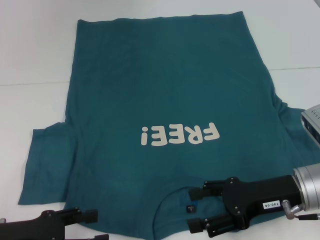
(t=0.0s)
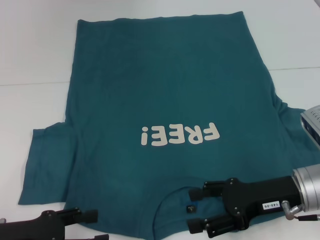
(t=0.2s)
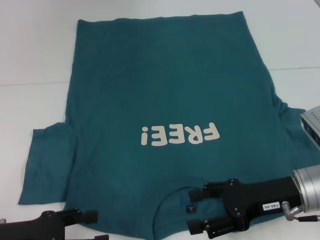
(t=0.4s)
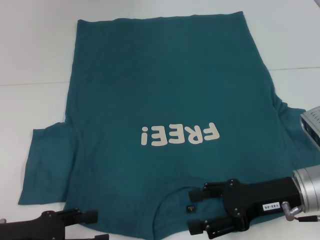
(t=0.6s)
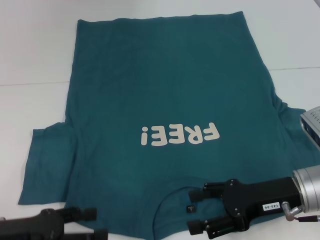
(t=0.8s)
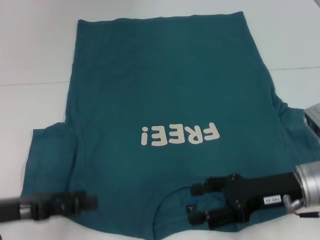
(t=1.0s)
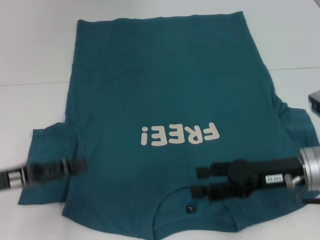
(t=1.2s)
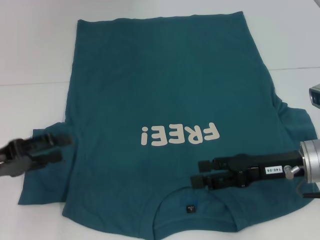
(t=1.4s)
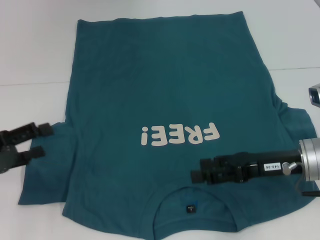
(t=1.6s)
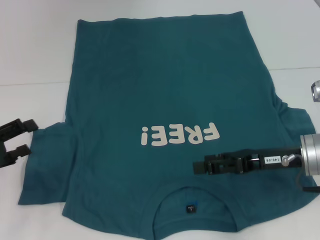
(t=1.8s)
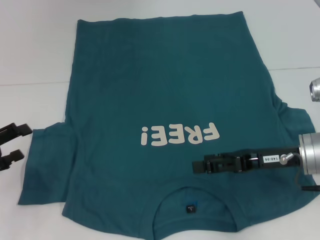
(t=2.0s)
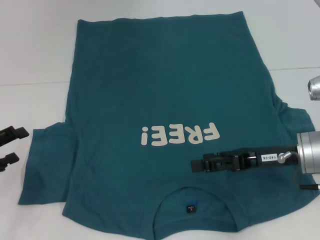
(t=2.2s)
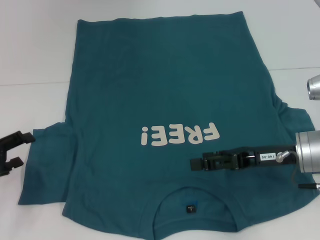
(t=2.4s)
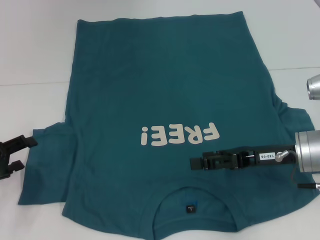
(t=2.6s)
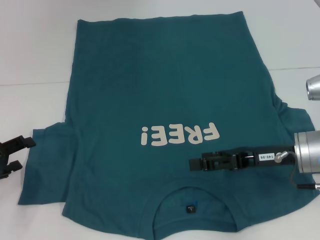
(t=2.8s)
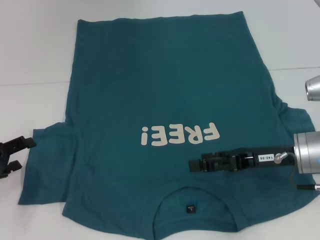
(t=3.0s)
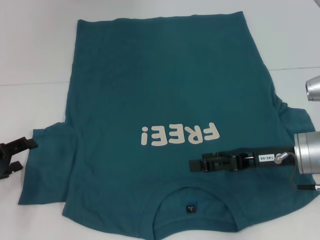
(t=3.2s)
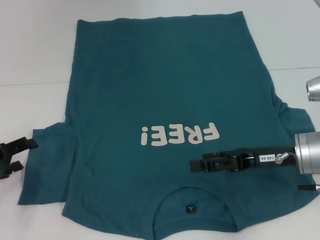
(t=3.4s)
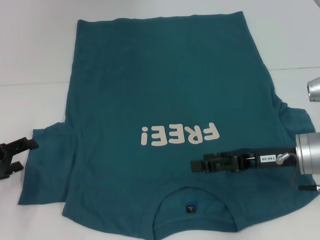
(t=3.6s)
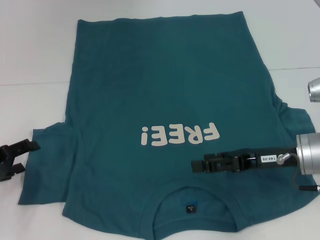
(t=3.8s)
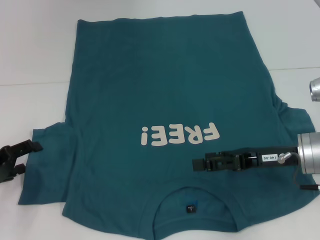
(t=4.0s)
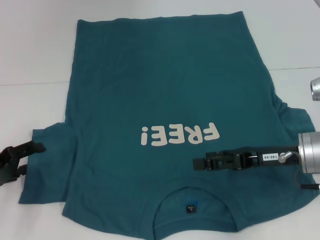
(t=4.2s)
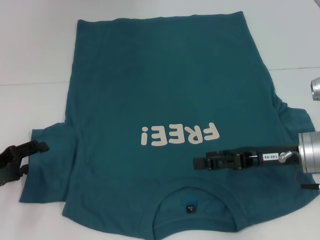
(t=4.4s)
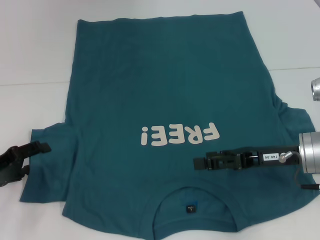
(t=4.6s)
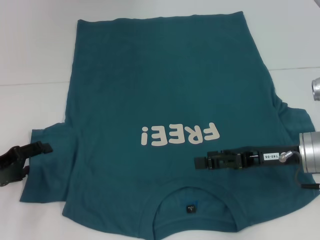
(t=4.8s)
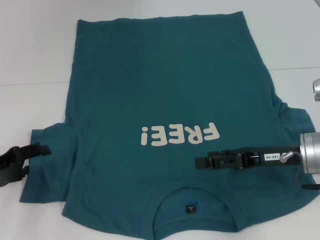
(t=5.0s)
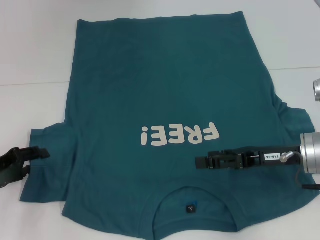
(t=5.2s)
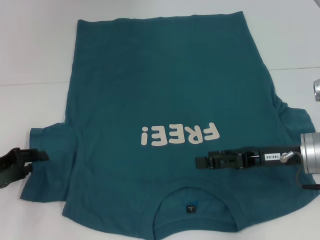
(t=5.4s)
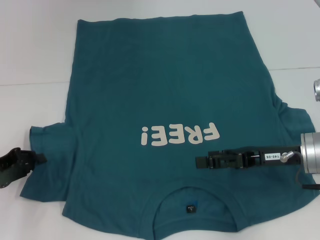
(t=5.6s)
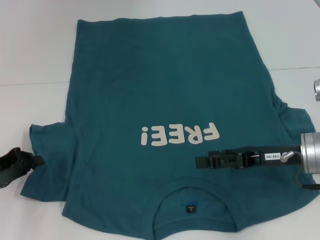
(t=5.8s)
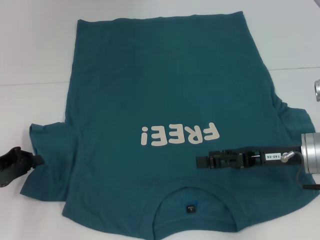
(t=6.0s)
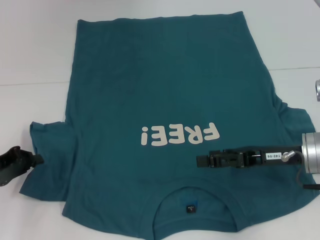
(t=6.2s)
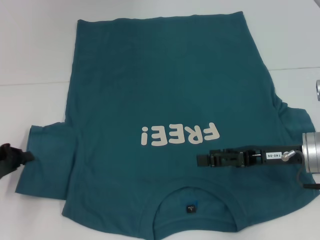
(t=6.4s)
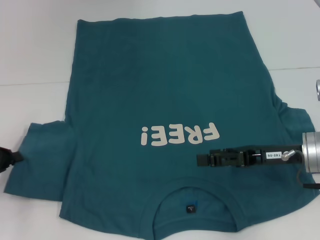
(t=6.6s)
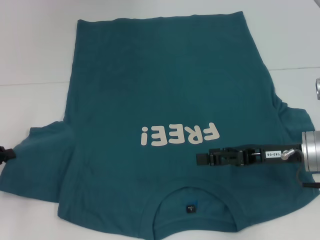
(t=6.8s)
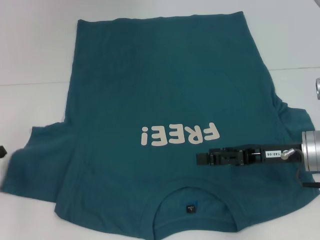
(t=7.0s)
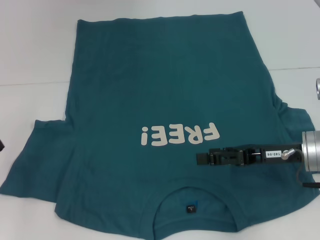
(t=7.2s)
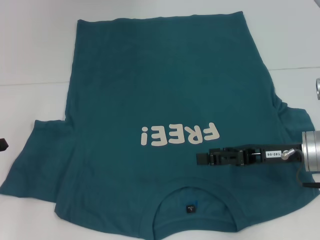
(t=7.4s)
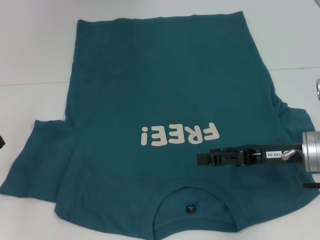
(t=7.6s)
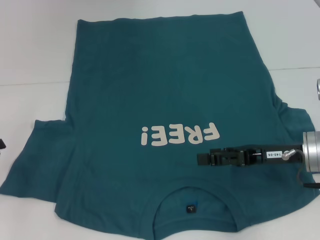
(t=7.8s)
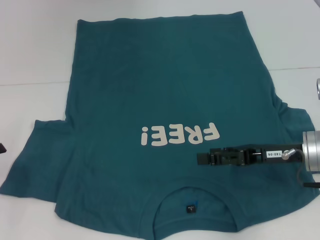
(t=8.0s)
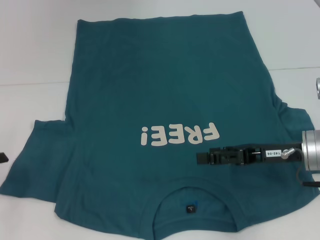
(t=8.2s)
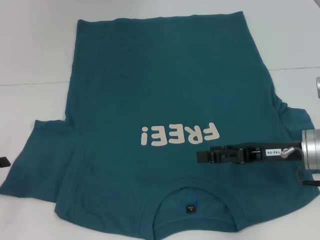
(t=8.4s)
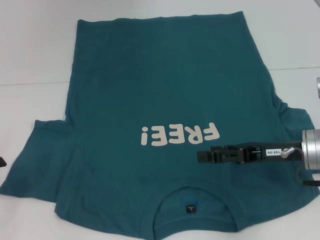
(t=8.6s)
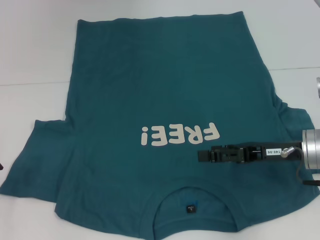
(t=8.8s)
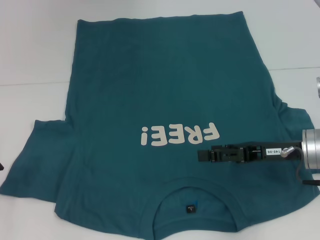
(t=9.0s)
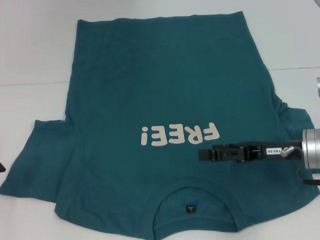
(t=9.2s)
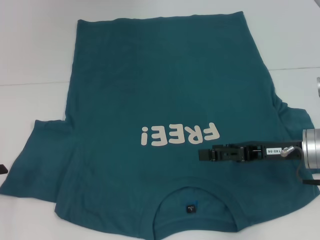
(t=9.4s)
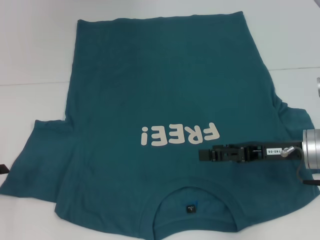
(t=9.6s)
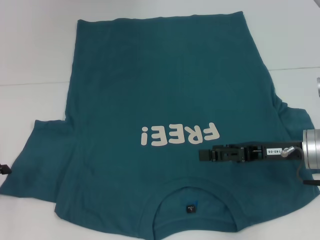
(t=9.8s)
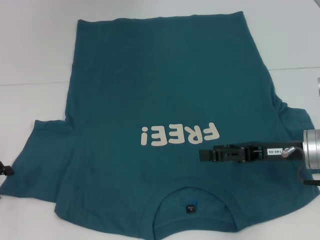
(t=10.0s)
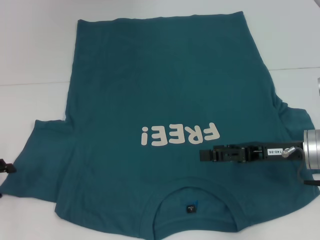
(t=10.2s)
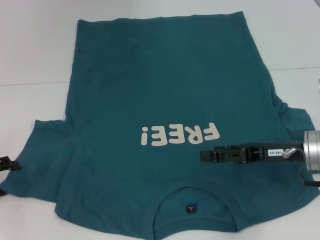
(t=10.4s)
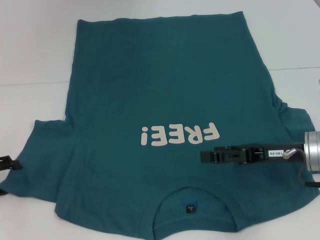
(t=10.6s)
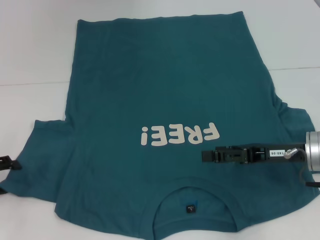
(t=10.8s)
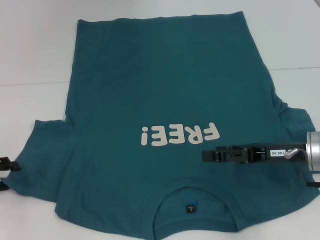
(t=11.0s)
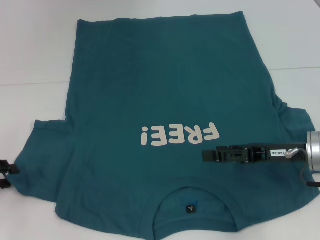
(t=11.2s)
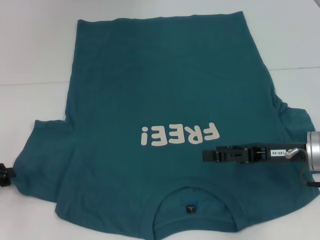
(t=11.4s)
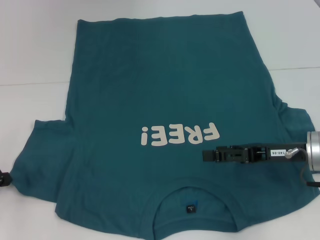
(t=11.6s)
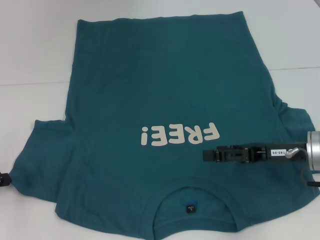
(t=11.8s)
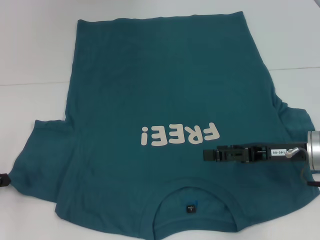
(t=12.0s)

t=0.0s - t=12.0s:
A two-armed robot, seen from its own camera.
t=0.0s - t=1.6s: The left gripper goes roughly 10 cm forward and to the left.
t=1.6s - t=3.0s: The left gripper shifts by roughly 5 cm.
t=3.0s - t=4.4s: The two grippers keep their place.
t=4.4s - t=6.0s: The left gripper closes up.
t=6.0s - t=7.6s: The left gripper changes place by roughly 5 cm.
t=9.0s - t=10.4s: There are only small adjustments of the grippers.
t=10.4s - t=12.0s: The left gripper closes.

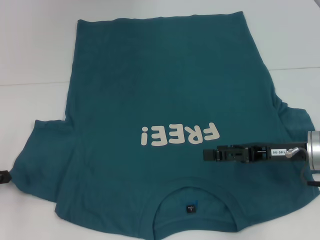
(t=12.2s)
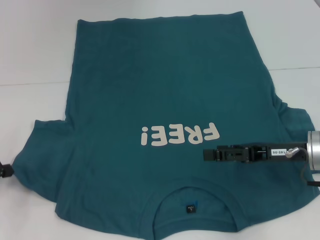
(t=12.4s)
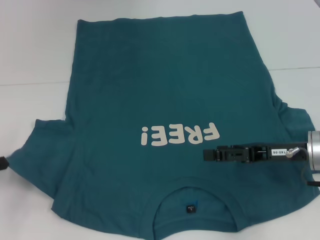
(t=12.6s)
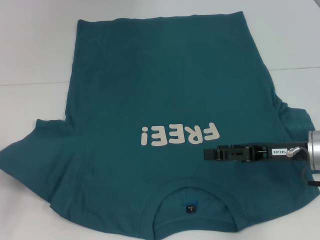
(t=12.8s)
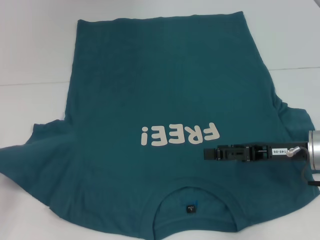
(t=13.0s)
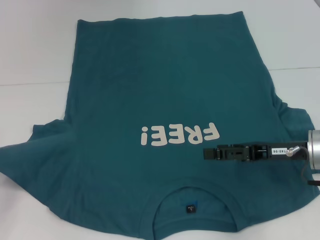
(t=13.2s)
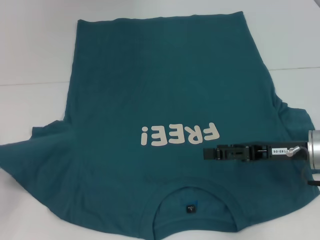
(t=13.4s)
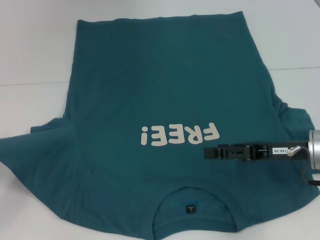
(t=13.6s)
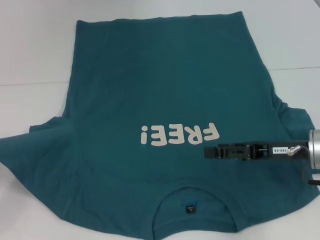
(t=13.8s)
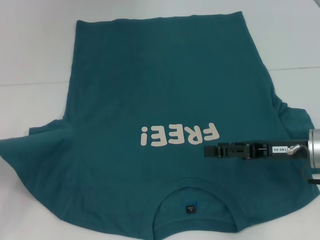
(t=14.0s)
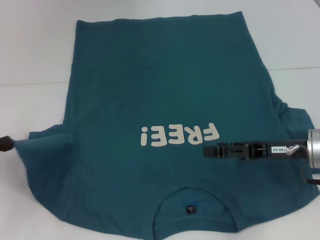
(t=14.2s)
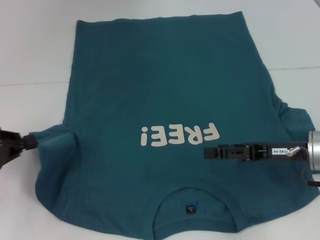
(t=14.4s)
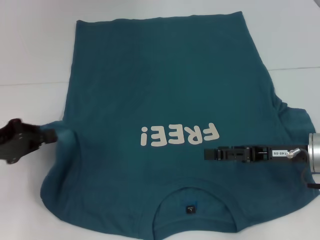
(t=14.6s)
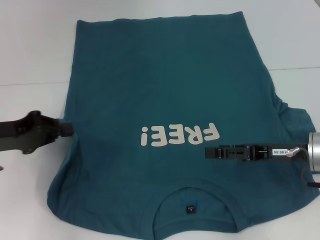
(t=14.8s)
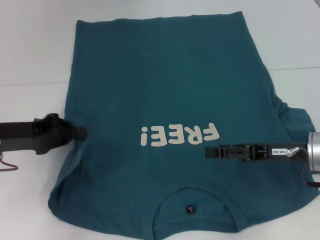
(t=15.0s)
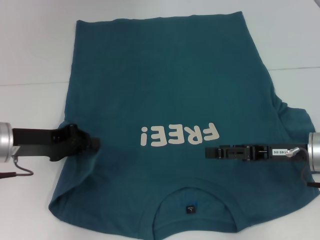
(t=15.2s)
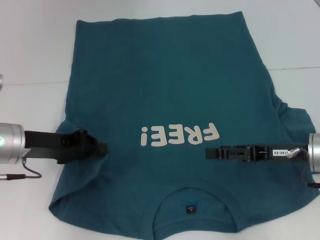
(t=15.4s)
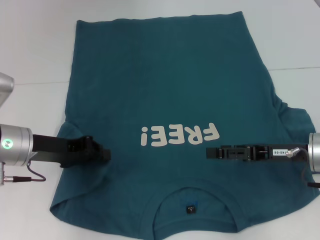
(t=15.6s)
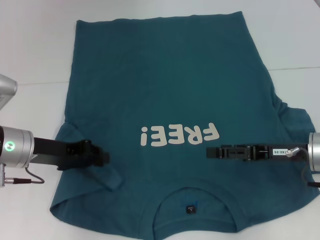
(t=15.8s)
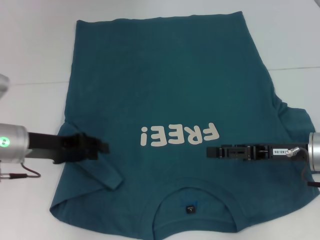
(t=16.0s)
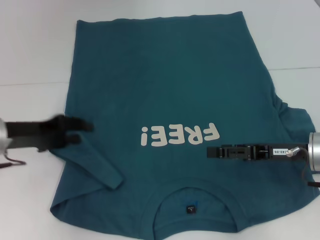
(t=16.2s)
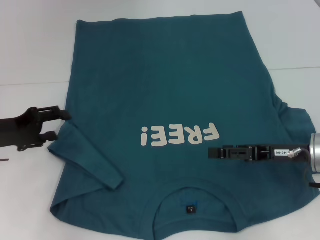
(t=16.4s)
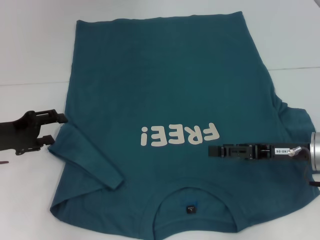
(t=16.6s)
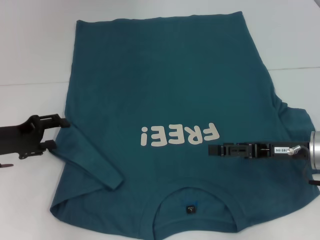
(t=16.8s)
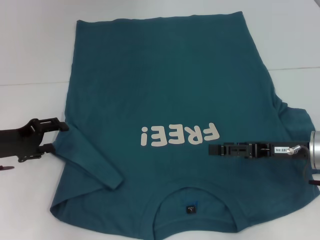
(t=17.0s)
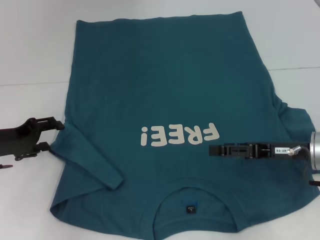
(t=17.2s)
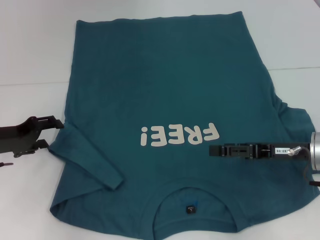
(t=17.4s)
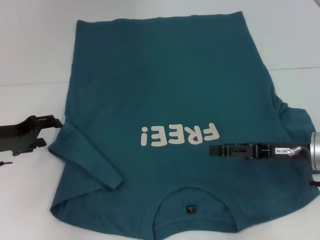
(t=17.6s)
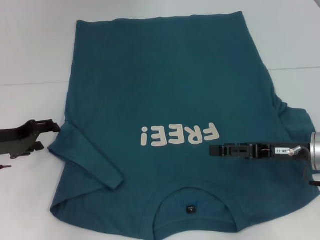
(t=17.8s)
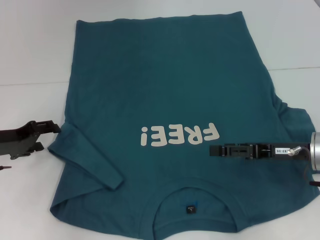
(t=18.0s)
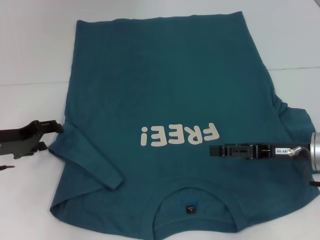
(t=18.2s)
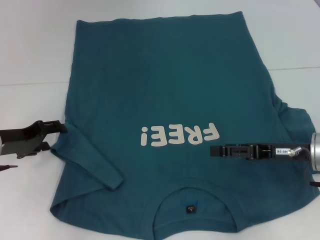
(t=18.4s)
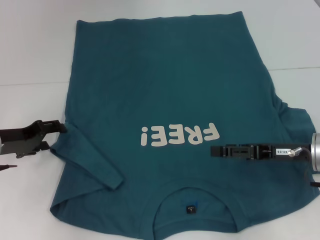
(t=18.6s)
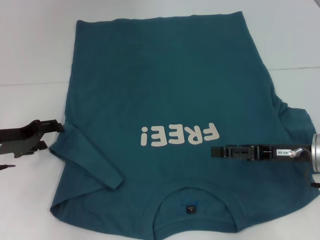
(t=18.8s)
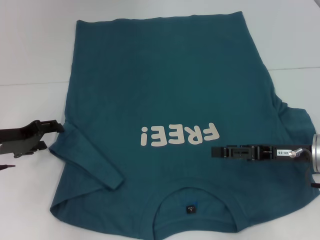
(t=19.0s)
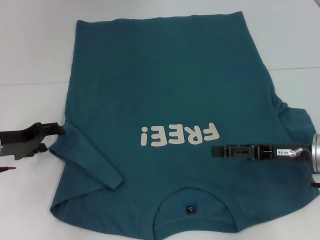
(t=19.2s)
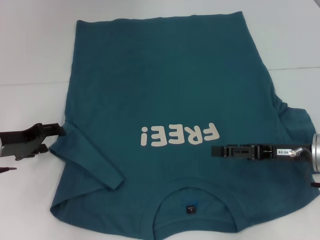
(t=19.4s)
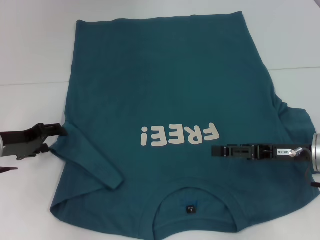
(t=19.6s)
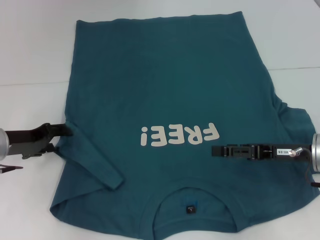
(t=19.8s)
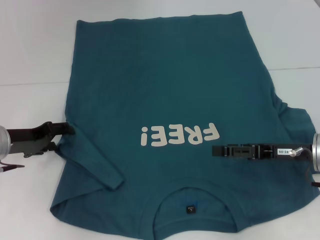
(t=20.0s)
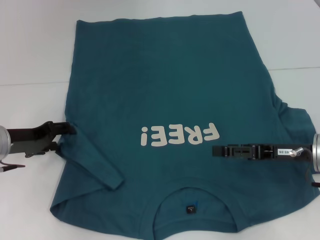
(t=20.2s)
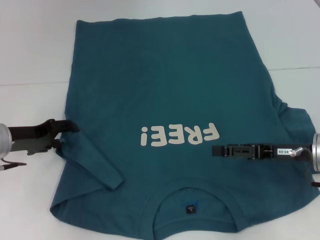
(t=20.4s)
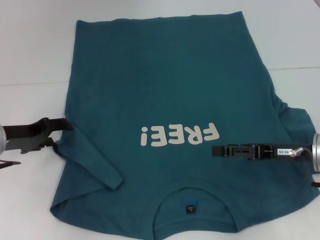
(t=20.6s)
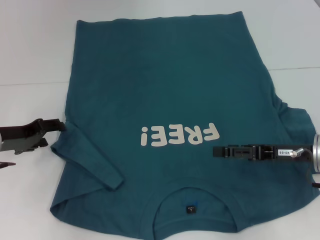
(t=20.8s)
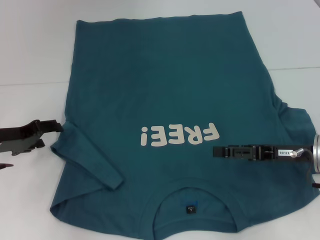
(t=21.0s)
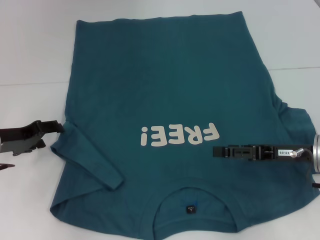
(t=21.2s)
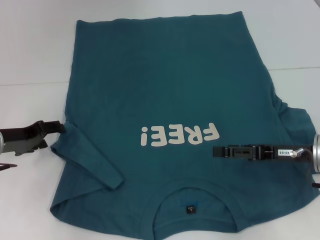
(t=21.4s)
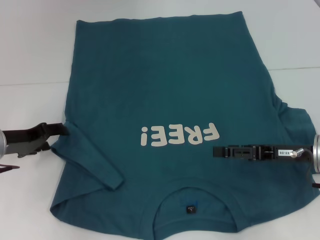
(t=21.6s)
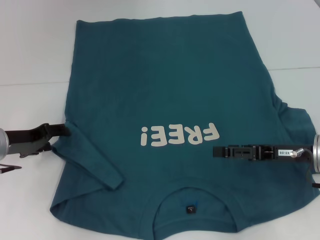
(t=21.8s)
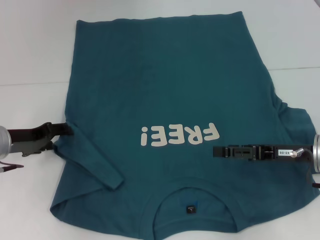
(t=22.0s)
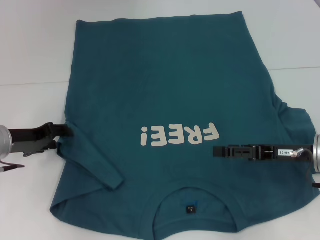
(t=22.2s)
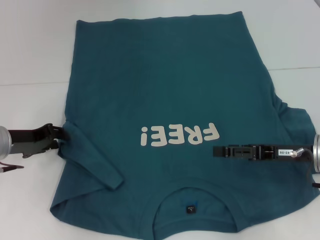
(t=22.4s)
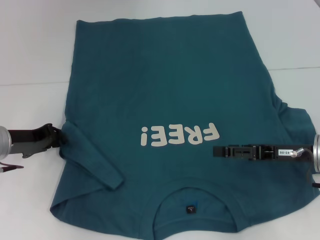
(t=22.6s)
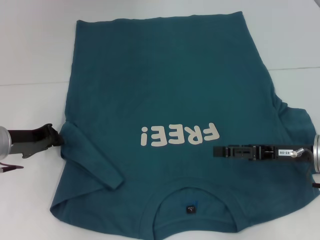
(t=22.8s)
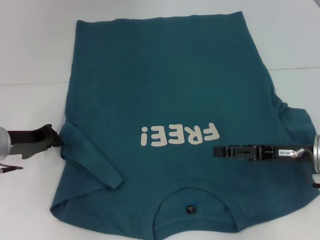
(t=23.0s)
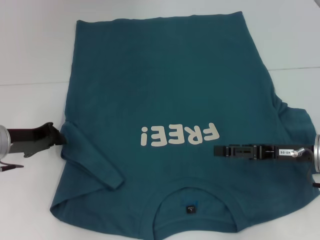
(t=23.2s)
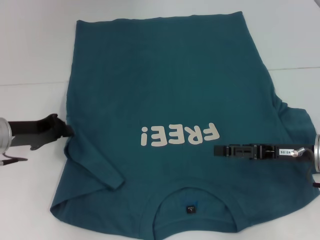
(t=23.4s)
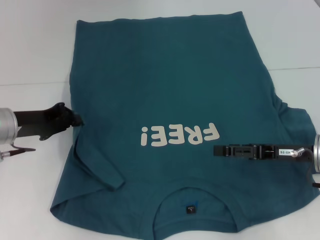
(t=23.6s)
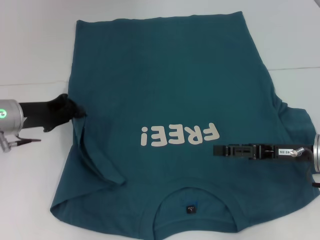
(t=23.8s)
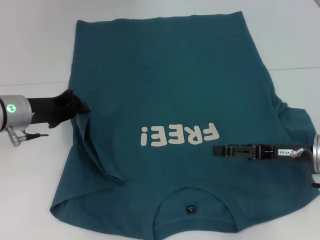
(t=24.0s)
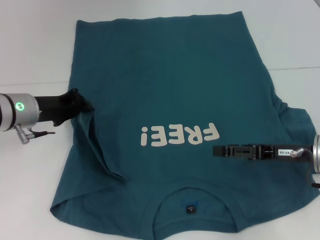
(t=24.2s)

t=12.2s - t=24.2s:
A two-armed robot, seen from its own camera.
t=12.2s - t=13.8s: The left gripper ends up approximately 5 cm from where it was.
t=13.8s - t=15.2s: The left gripper heads to the right and forward, covering roughly 15 cm.
t=15.2s - t=16.6s: The left gripper changes place by approximately 5 cm, and opens its fingers.
t=16.6s - t=19.8s: There are only small adjustments of the grippers.
t=19.8s - t=21.2s: The two grippers keep their place.
t=21.2s - t=22.6s: The grippers move only a little.
t=22.6s - t=24.2s: The left gripper changes place by some 5 cm, and closes.
